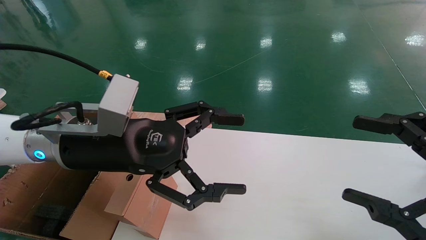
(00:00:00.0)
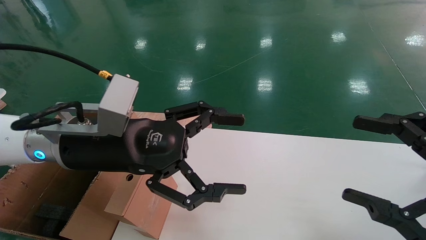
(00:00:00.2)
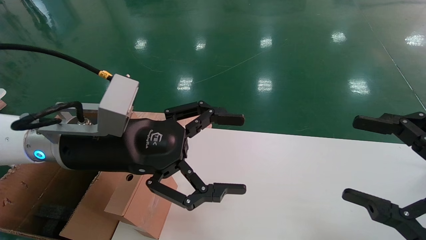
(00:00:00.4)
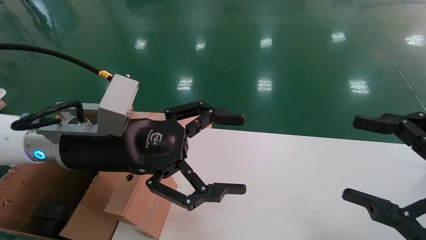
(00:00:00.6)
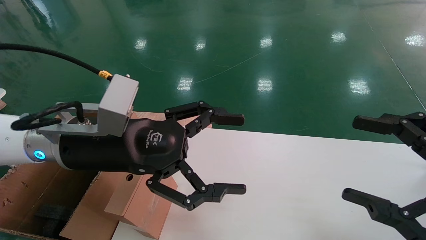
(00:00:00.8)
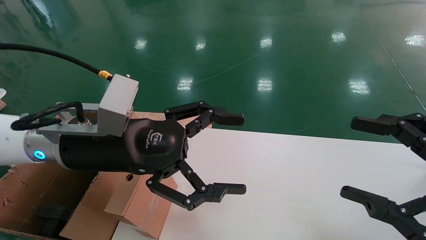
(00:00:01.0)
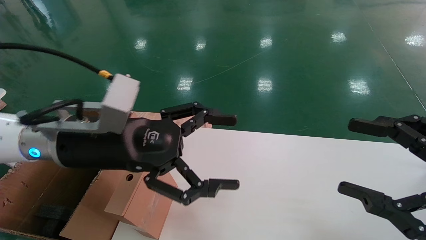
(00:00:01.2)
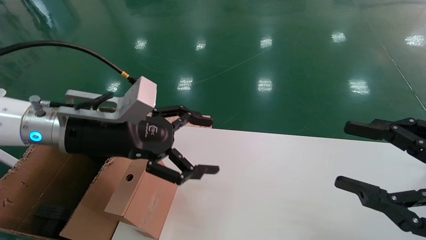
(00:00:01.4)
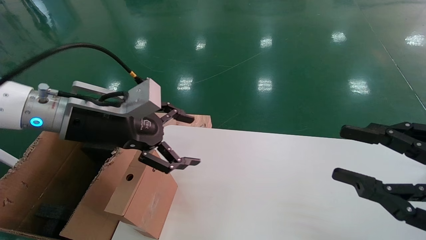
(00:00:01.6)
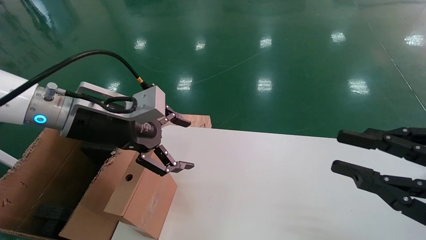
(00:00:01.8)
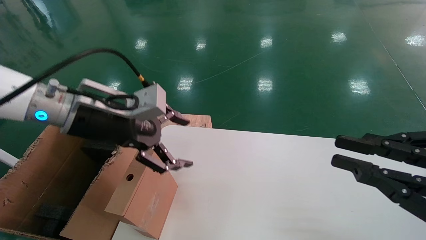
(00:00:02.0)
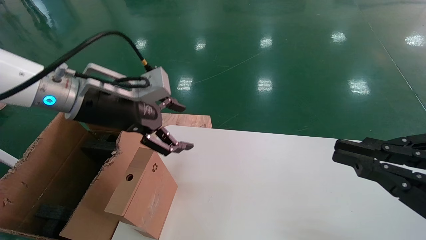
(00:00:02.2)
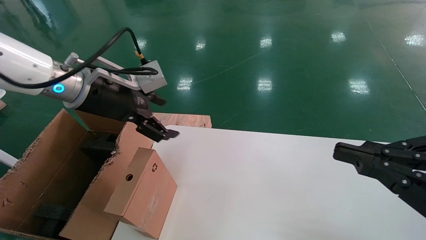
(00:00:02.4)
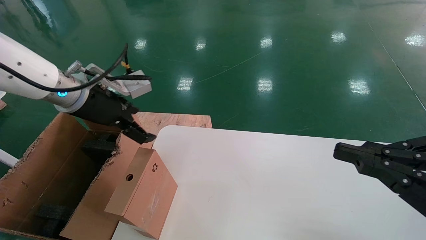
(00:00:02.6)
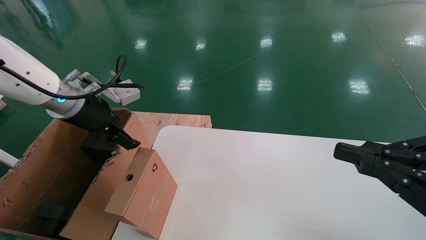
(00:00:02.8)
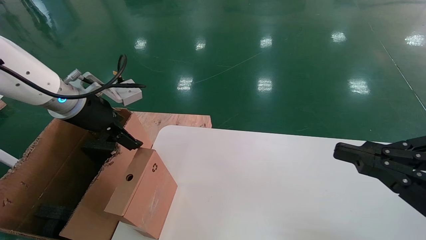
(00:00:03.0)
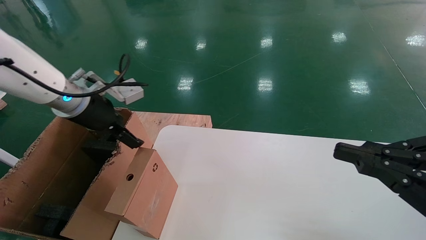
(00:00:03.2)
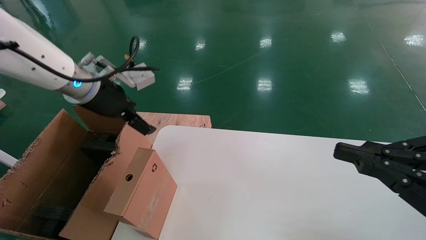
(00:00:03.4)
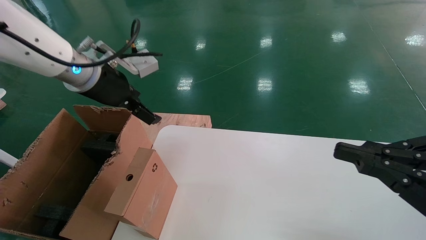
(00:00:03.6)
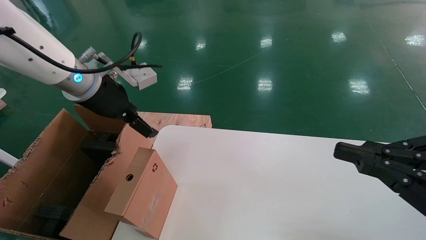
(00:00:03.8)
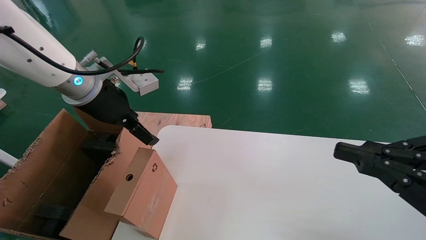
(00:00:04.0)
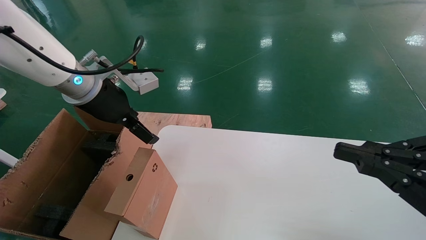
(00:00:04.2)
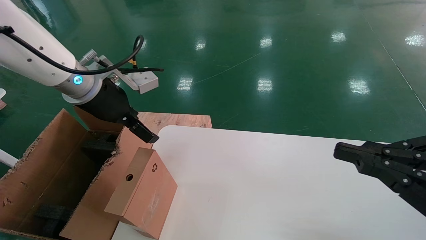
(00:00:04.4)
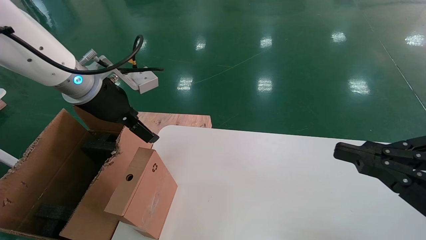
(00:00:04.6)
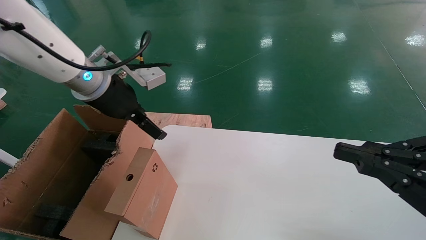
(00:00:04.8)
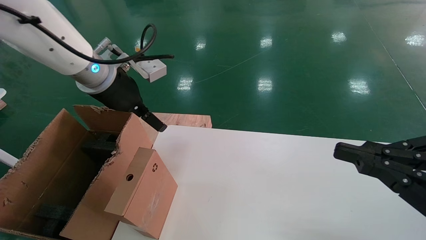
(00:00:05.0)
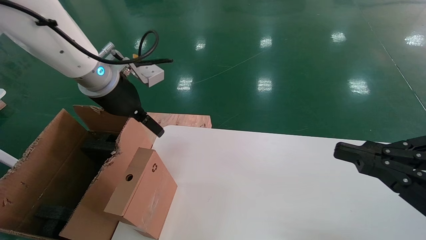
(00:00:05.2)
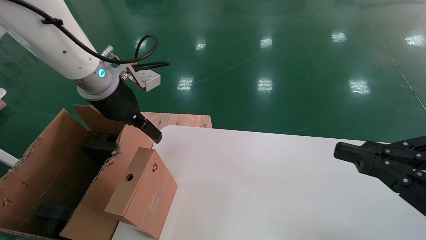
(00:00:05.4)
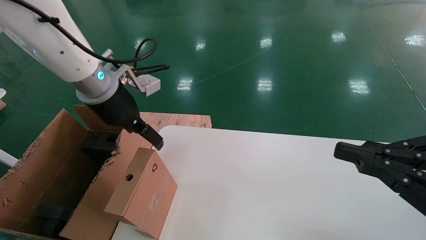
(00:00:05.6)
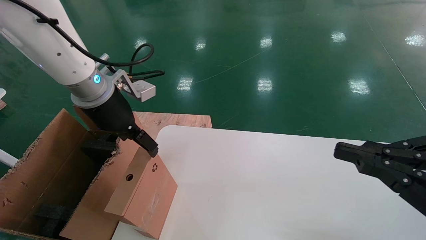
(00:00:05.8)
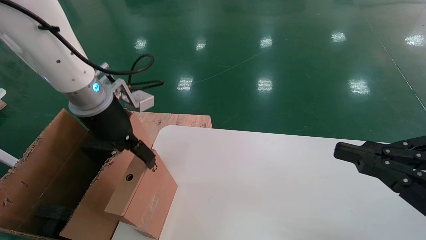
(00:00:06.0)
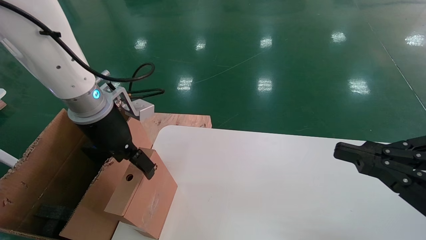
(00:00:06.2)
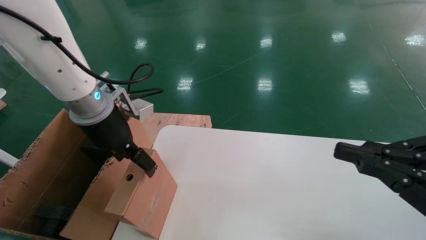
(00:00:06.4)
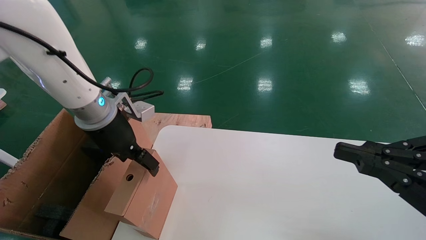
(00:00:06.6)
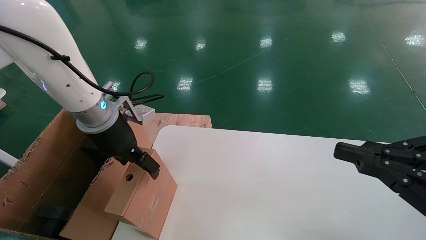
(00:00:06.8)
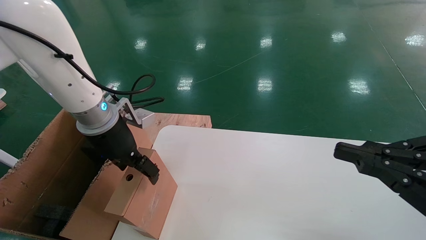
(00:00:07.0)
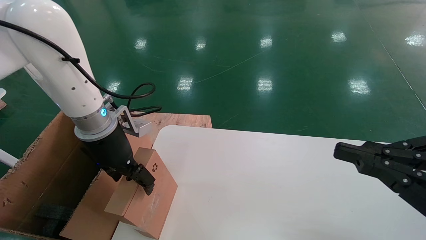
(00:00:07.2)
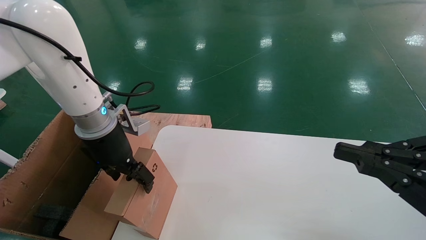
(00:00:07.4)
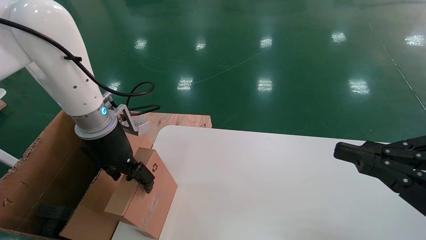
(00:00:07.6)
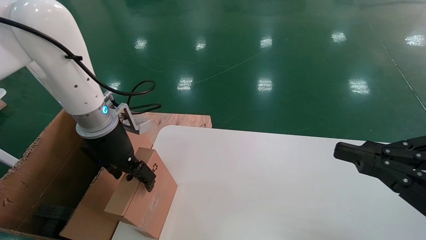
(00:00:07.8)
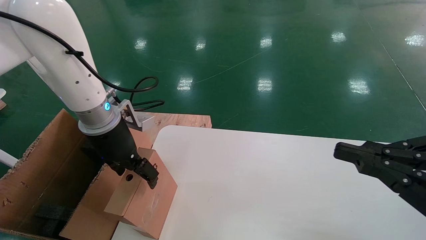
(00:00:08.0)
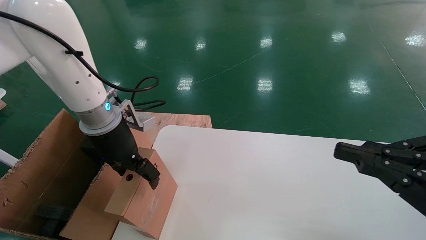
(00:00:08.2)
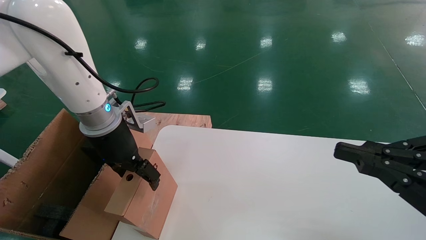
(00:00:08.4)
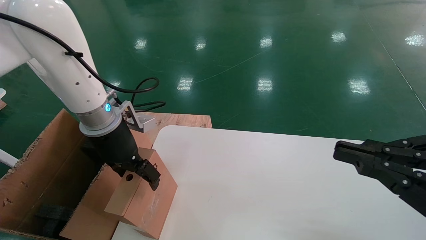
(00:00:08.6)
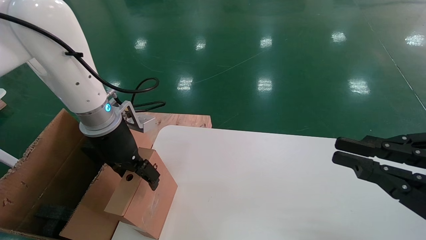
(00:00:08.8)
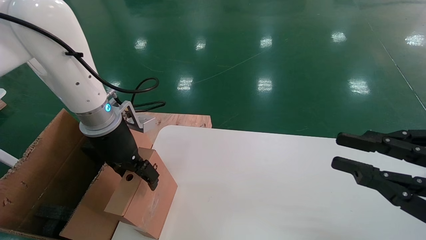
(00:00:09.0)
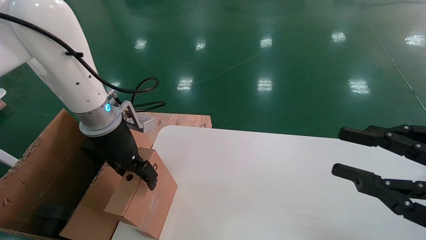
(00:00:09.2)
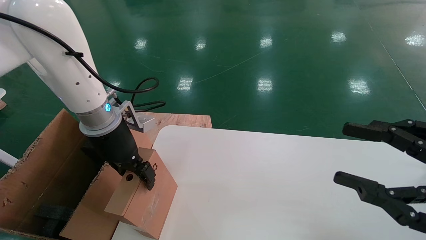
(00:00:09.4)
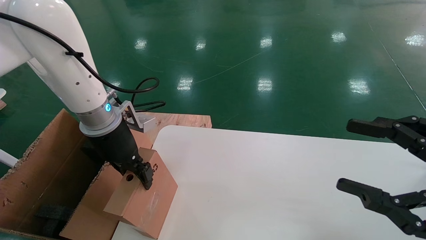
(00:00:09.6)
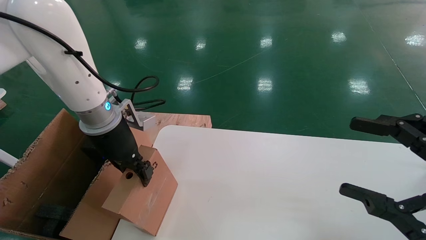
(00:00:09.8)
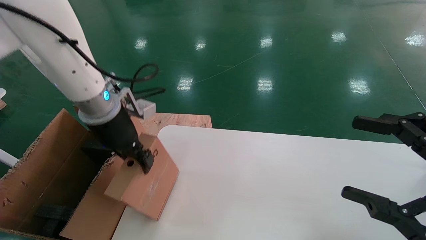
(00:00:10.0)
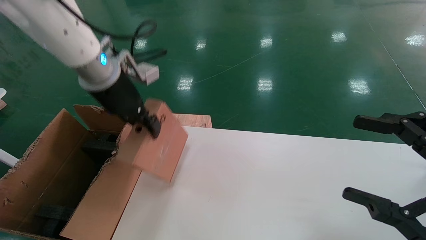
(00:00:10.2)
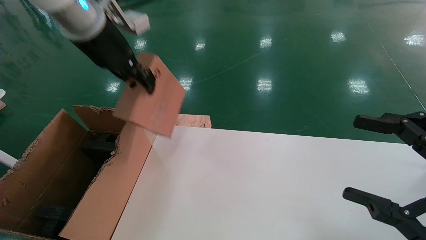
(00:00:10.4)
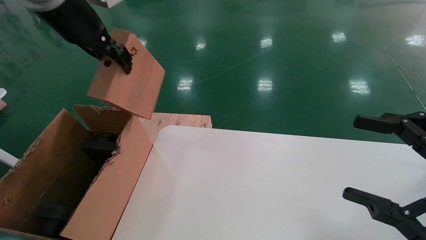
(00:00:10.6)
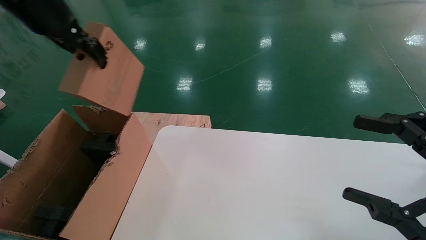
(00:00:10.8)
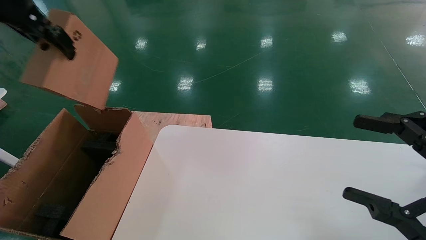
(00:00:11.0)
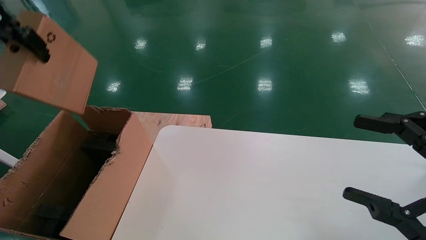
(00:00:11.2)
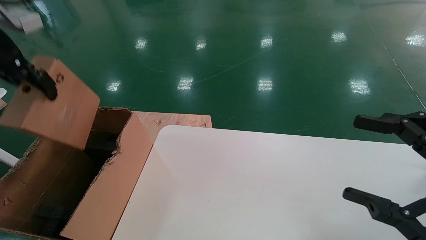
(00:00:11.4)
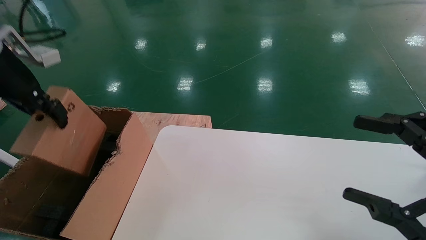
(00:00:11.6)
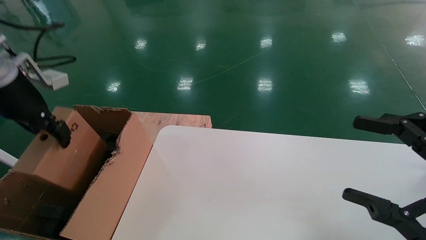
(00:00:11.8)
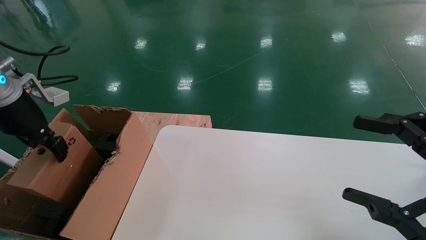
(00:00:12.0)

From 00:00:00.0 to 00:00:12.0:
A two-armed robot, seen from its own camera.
Task of the whole recording: place the small box on the table into the large box on the left.
Step, from 00:00:01.6 to 00:00:09.6: Pick up the mouse and the power cord paper box.
From 00:00:00.0 to 00:00:01.6: The right gripper closes, while the left gripper changes place by roughly 5 cm.
From 00:00:01.6 to 00:00:03.0: The right gripper closes up. The left gripper shifts approximately 10 cm to the left and forward.
From 00:00:03.0 to 00:00:04.4: The grippers move only a little.
From 00:00:06.0 to 00:00:07.6: There are only small adjustments of the grippers.
From 00:00:07.6 to 00:00:09.0: The two grippers keep their place.
From 00:00:09.0 to 00:00:10.4: The left gripper travels upward by approximately 15 cm, and closes up, while the right gripper opens up.
From 00:00:10.4 to 00:00:12.0: The left gripper heads to the left and downward, covering roughly 20 cm.

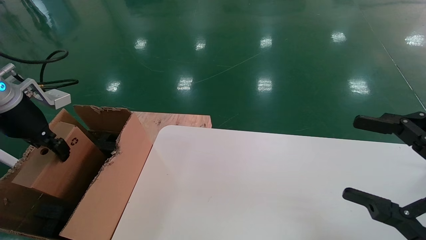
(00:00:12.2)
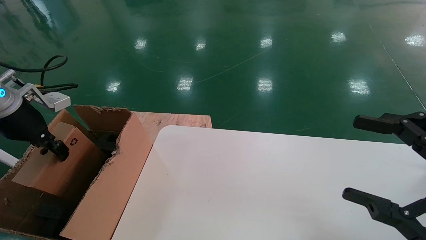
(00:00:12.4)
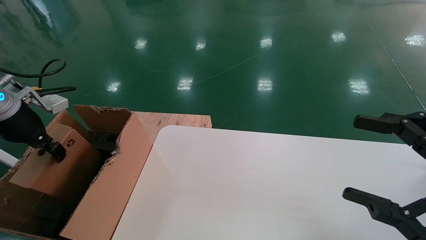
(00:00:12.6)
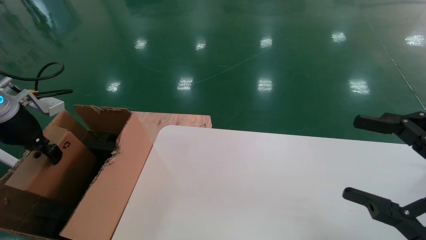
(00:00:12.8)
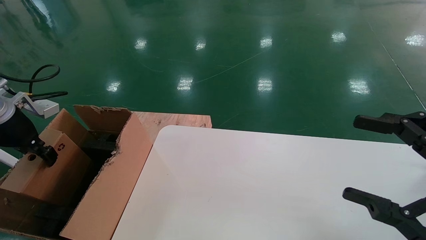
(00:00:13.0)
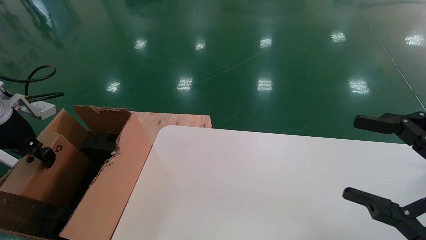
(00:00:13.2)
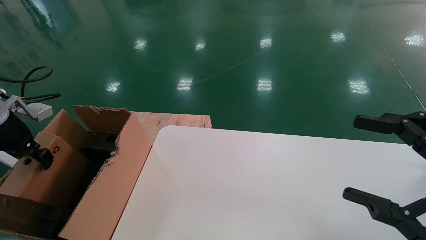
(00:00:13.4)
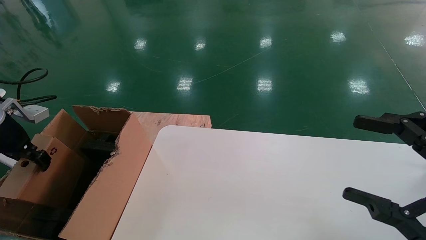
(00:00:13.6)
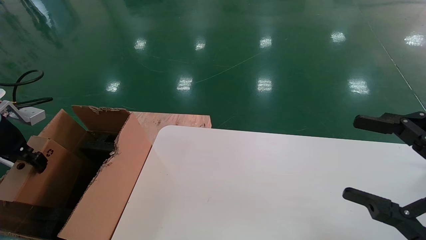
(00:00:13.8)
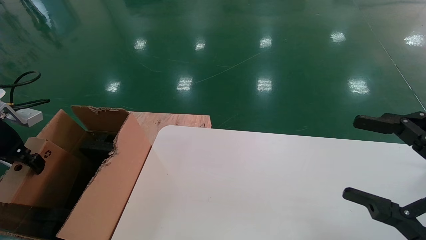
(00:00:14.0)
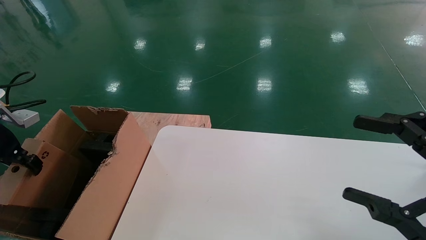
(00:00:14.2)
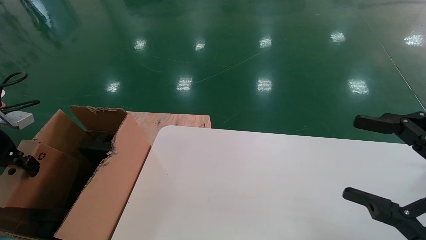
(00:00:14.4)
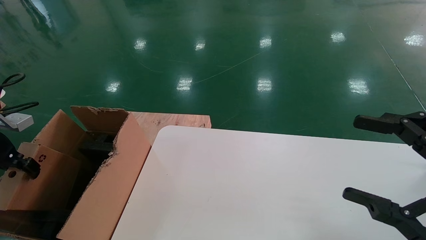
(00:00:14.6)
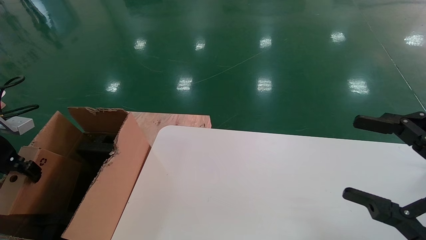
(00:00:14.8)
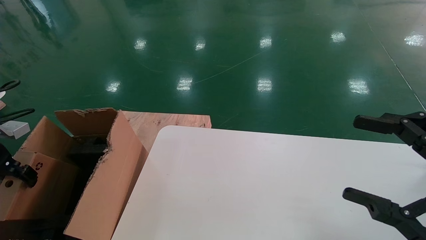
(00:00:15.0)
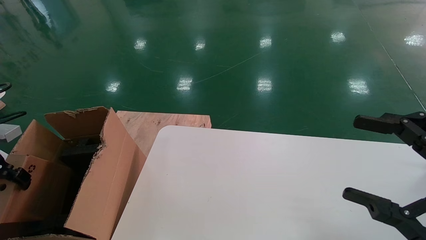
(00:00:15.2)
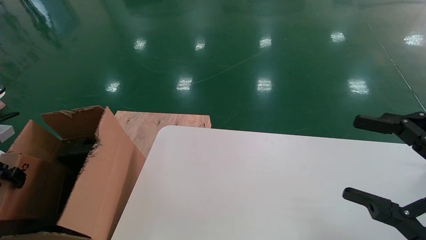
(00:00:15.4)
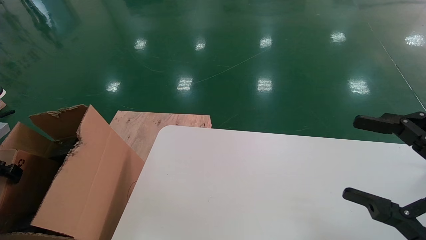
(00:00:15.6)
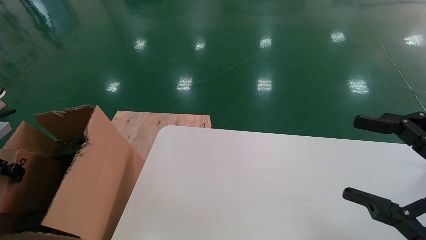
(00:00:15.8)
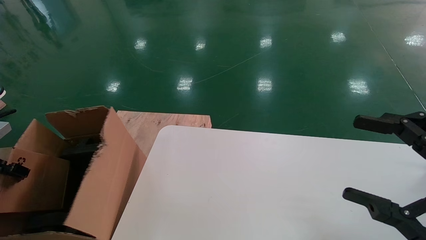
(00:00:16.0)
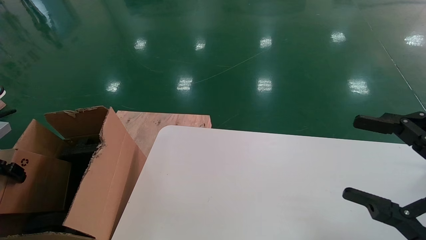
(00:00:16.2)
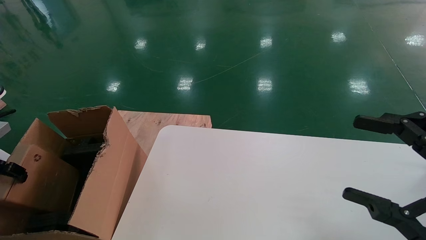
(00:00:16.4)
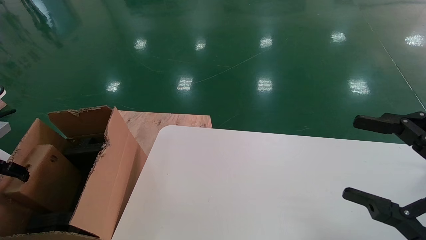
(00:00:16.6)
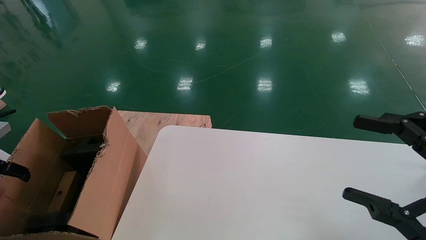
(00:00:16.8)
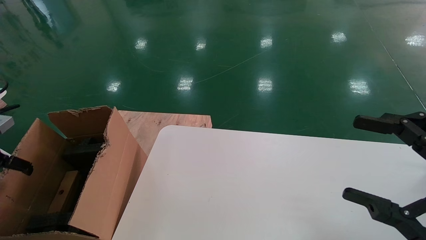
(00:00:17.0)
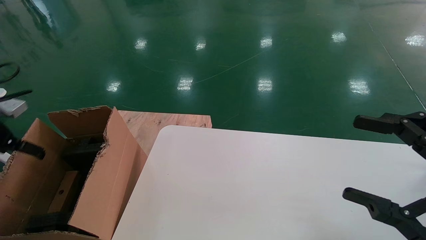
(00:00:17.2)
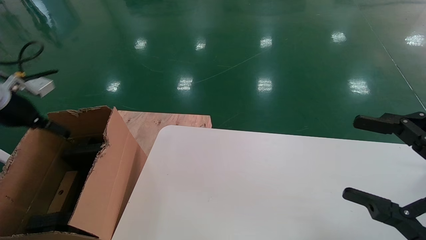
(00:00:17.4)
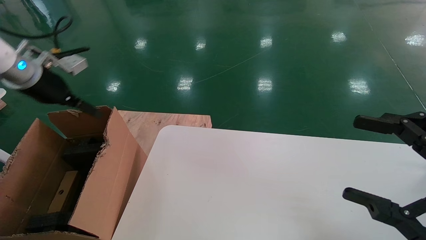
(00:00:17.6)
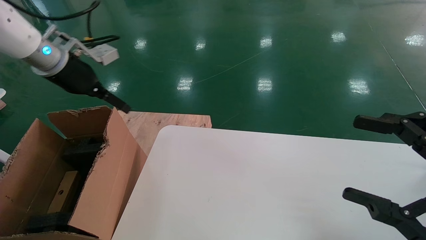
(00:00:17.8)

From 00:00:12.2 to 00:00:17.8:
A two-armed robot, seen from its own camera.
Task of the whole recording: place the small box on the table into the large box on the left.
Step, from 00:00:12.2 to 00:00:16.8: Place the mouse and the power cord paper box into the container.
From 00:00:12.2 to 00:00:13.6: The left gripper shifts roughly 10 cm to the left and downward.
From 00:00:13.6 to 00:00:15.0: The left gripper ends up approximately 5 cm from where it was.
From 00:00:15.0 to 00:00:16.4: The left gripper opens.
From 00:00:16.4 to 00:00:17.8: The left gripper shifts roughly 30 cm to the right, upward and forward, and opens up.
